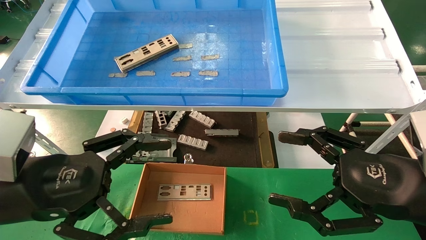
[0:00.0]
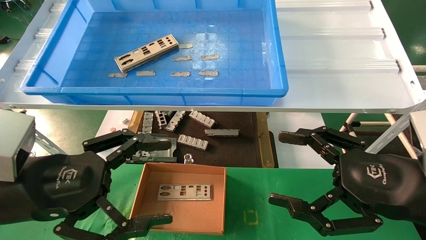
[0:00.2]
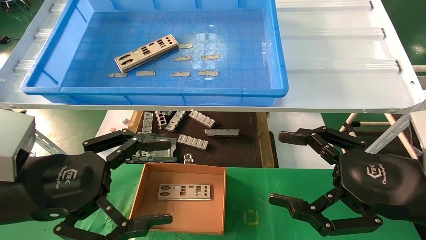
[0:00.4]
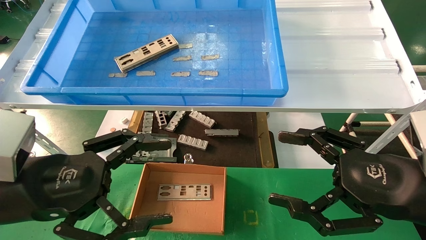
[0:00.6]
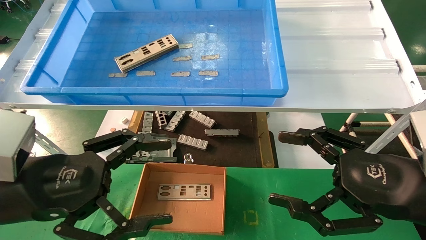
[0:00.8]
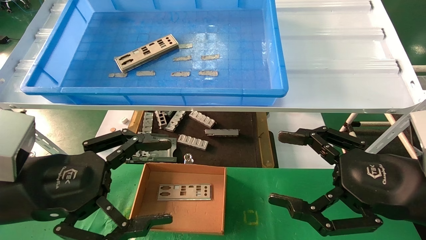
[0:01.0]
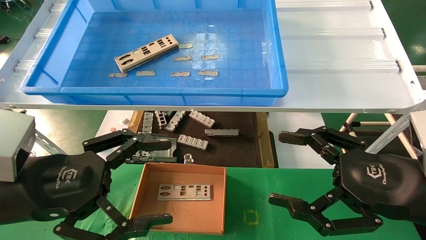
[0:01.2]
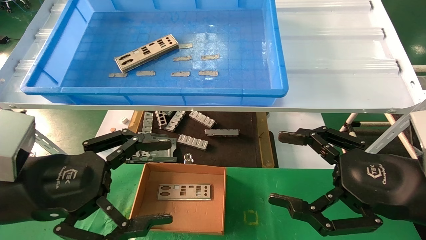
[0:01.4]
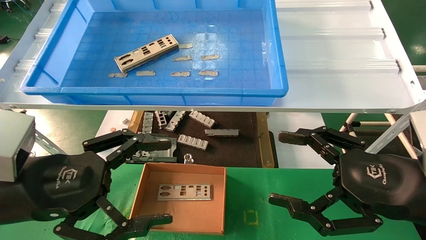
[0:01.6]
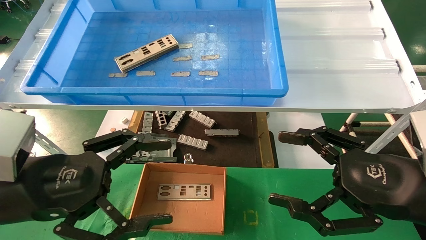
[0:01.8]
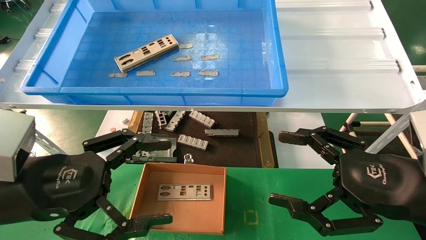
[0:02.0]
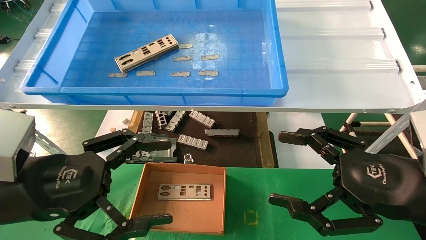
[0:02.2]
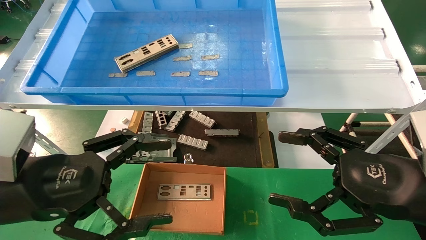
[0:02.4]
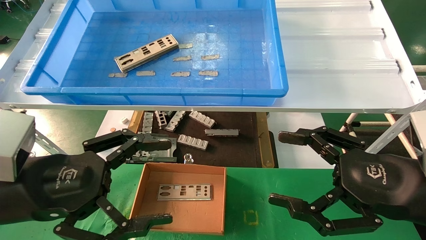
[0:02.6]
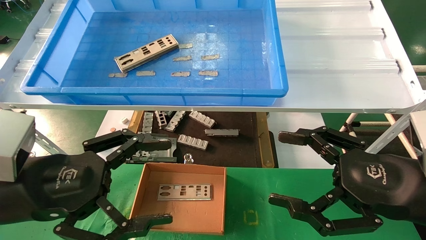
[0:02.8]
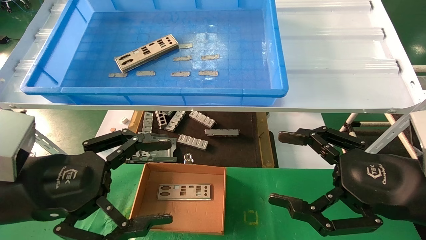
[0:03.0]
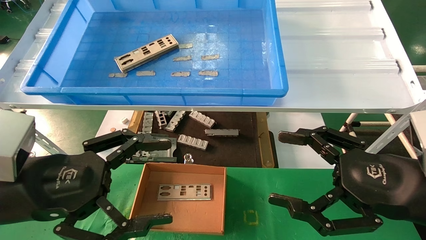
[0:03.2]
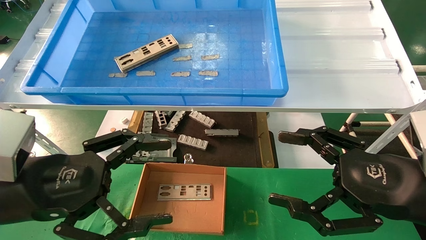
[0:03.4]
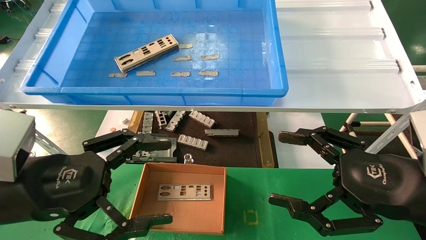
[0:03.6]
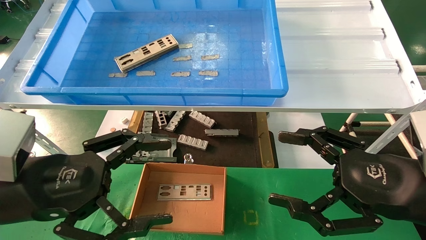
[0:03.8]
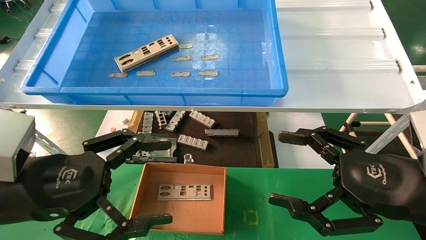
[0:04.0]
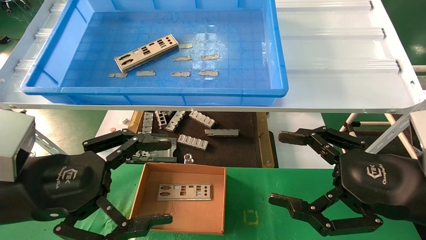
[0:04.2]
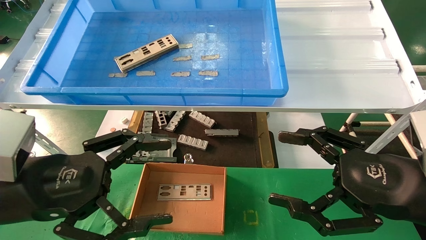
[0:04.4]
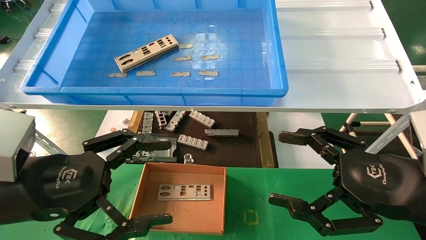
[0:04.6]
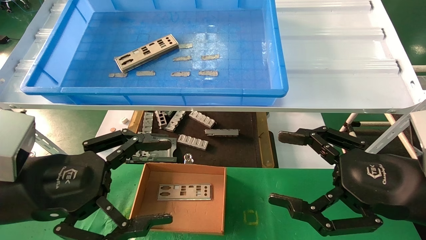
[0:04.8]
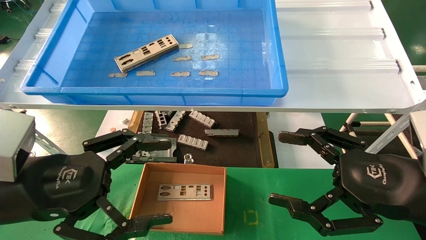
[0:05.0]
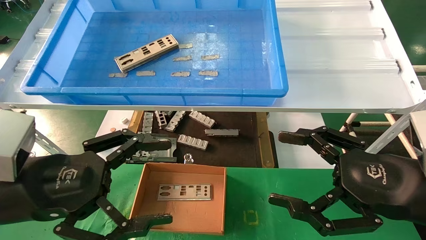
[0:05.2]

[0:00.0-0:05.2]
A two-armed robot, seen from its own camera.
Task of the whole recording: pick up the parts on the tray and put them in the cardboard box.
0:00.0 to 0:05.2: The two grippers keep their place.
